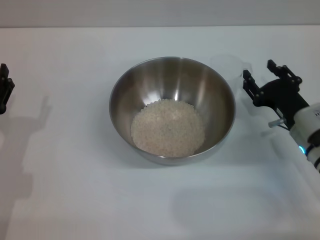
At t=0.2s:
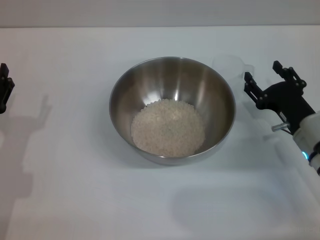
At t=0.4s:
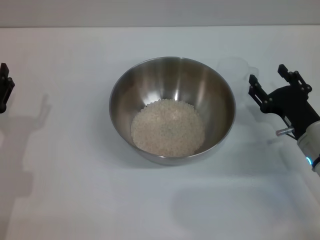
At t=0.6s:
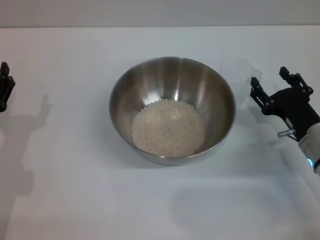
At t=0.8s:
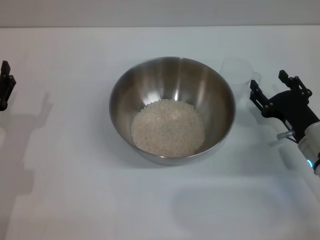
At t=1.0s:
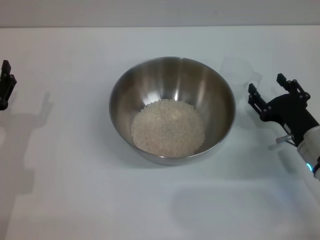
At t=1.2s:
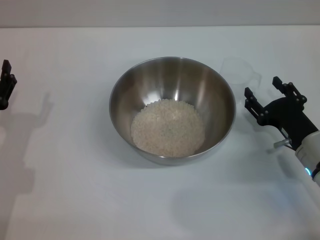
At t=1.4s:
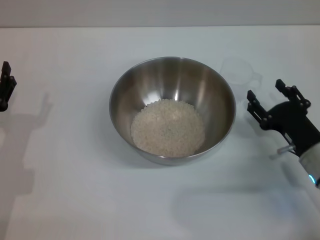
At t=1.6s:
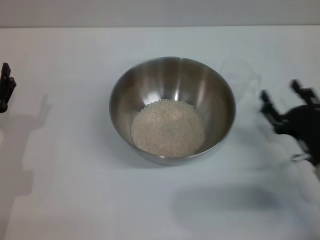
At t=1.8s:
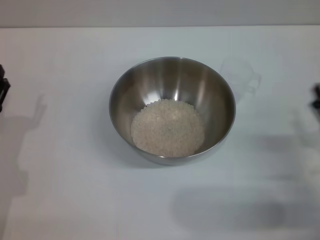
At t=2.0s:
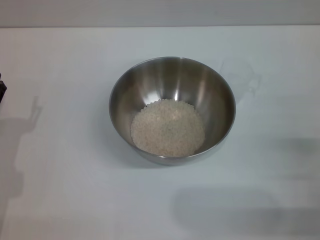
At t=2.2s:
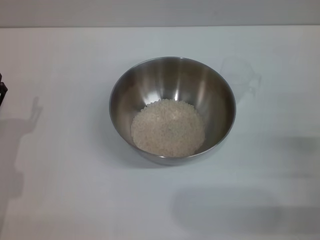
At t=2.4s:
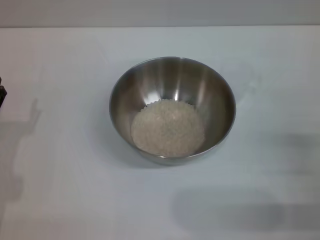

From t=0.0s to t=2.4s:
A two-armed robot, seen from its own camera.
Task of the whole recording: Place the bowl in the middle of the table with one hand and pour the rice from the grain cup into it with the other hand.
From t=0.0s to t=1.2s: The grippers stay close to where they were, moving slightly.
From t=1.2s to t=2.4s: The right gripper travels backward and to the right by some 10 cm.
